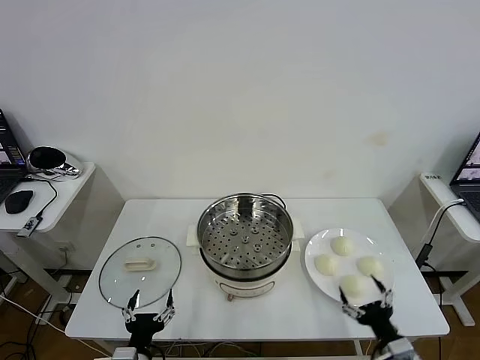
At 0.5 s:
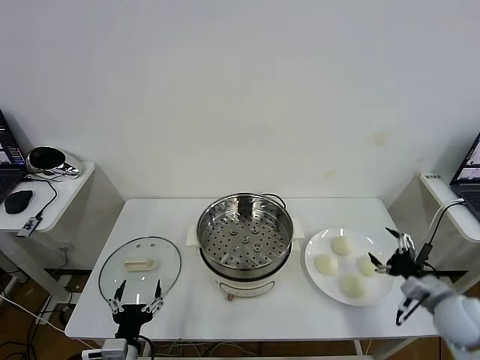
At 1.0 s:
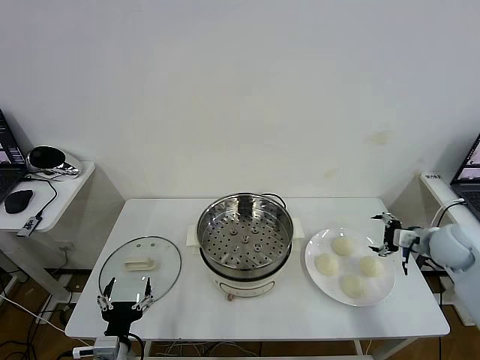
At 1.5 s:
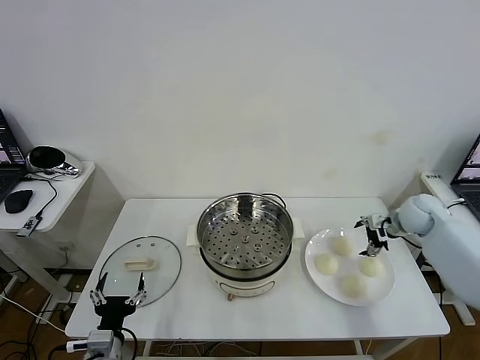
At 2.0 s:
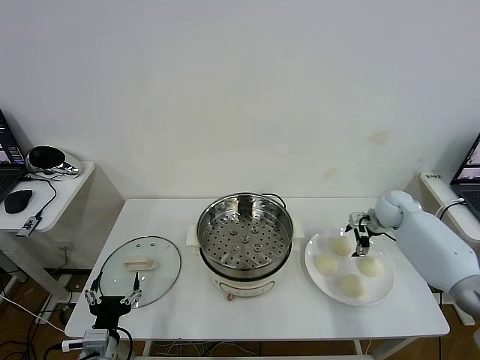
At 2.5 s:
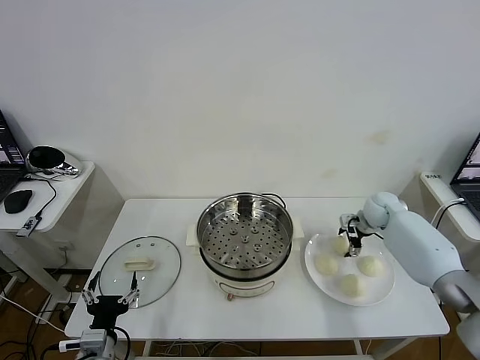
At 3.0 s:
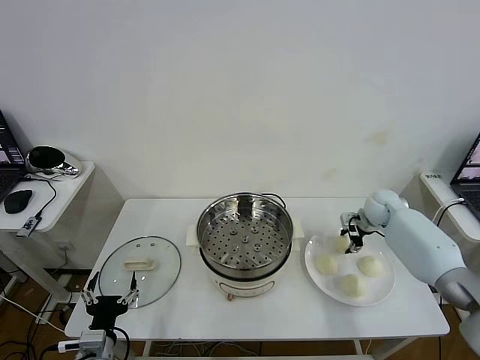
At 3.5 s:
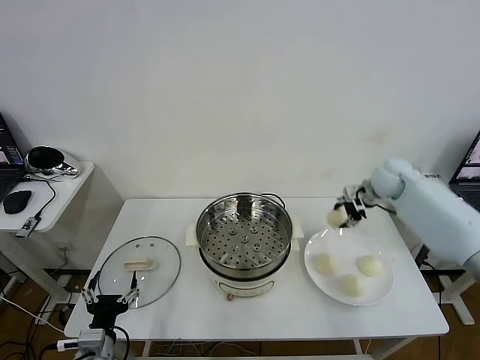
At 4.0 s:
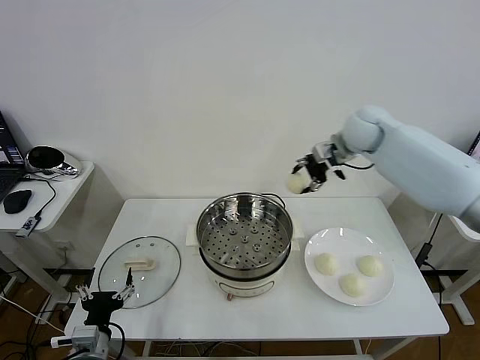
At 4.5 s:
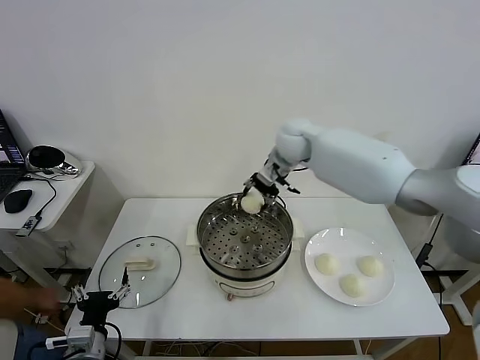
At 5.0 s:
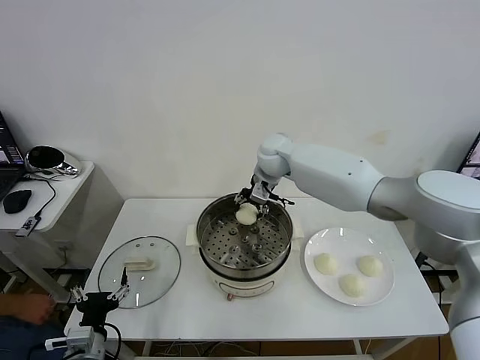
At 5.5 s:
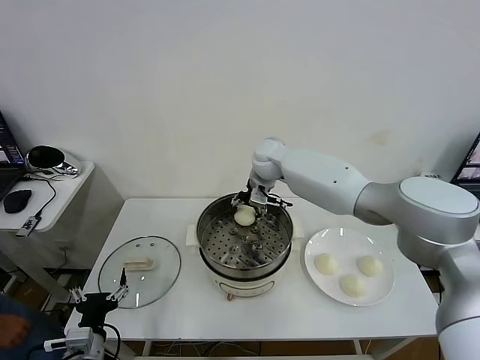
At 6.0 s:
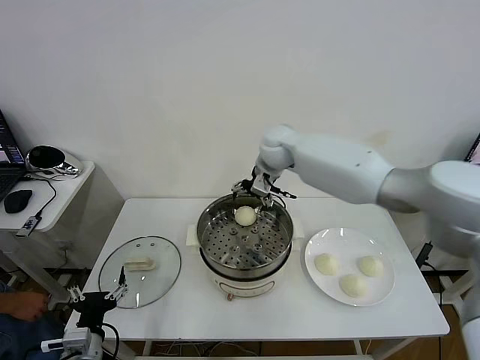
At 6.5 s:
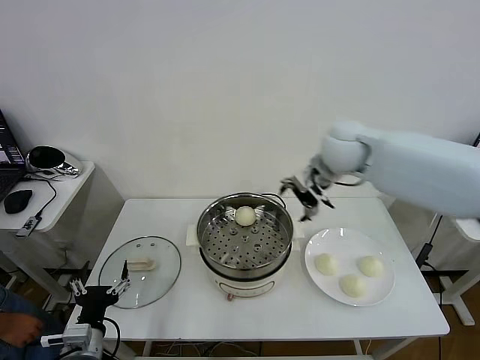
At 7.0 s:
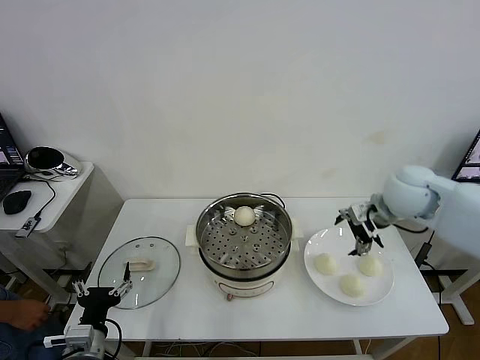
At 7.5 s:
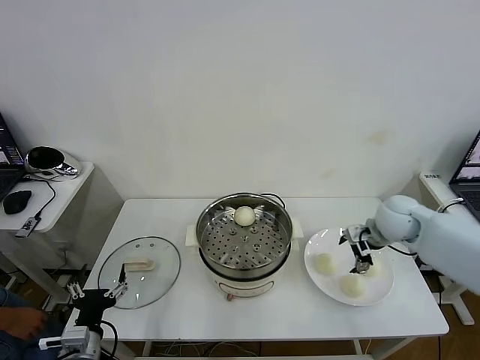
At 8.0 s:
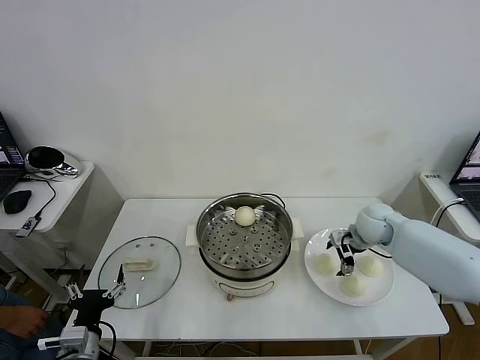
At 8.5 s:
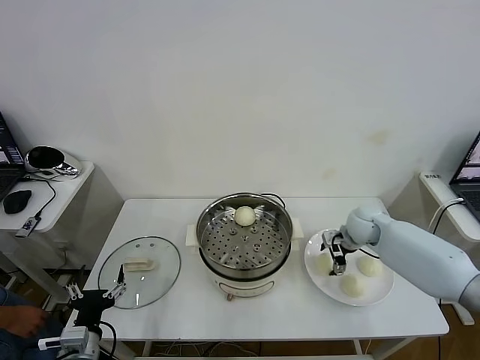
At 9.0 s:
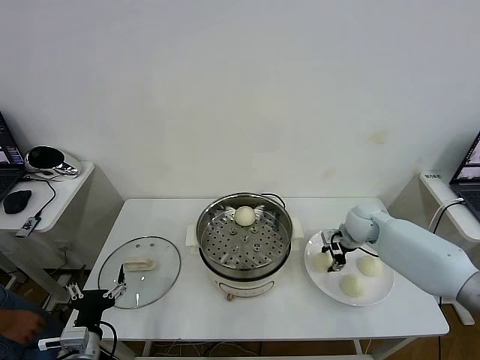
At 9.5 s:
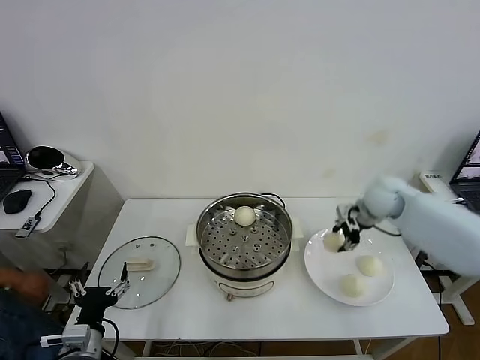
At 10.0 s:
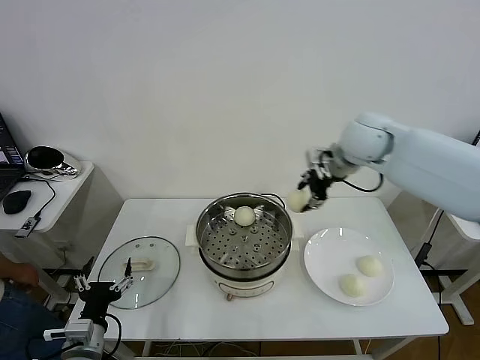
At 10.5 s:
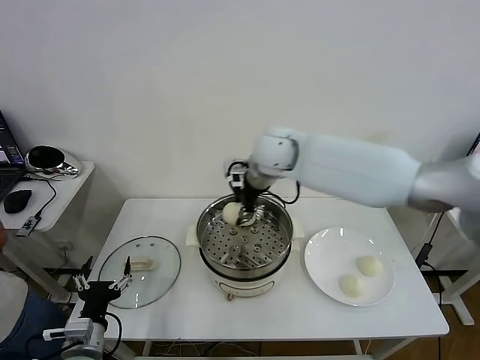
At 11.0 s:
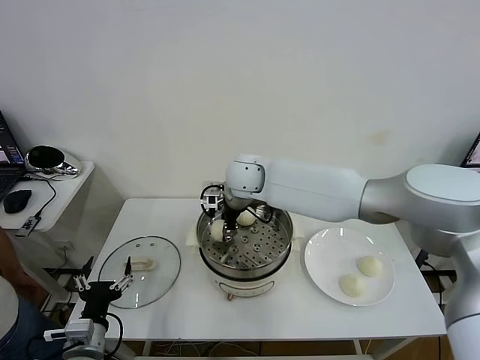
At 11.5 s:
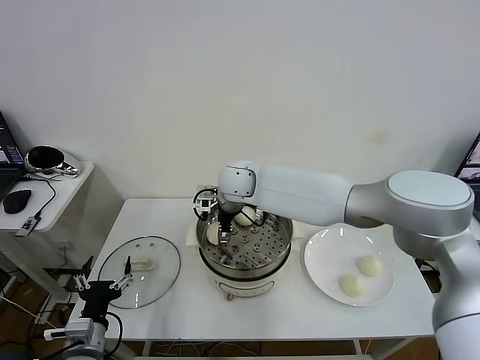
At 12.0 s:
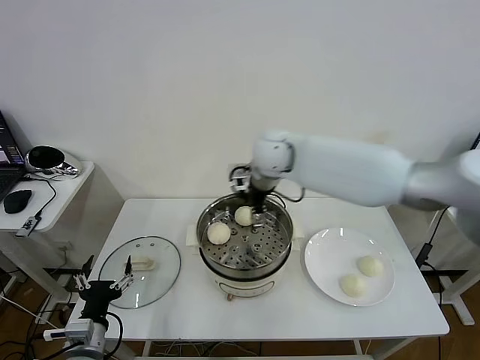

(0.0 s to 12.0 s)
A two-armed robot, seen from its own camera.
Task of the whole recording: take steamed baozi put them in steamer then cover it.
Step, 0.0 s - 2.5 s: Grasp the baozi in the plate with right gripper.
Step, 3.0 s - 5.5 s: Place the baozi on the steamer with right gripper.
Step, 6.0 s - 8.5 s: Grasp the baozi in the plate with right gripper.
Step, 9.0 s - 11.5 s: Place the baozi on the steamer with right gripper.
2.0 s - 4.0 s: The right gripper travels upward and to the left by approximately 30 cm, and closes up.
4.0 s - 6.0 s: The right gripper travels to the left by some 15 cm, and opens up.
6.0 s - 8.0 s: The right gripper travels to the right and downward by roughly 30 cm.
8.0 s - 10.0 s: The right gripper shifts approximately 25 cm upward and to the left, and closes.
10.0 s - 12.0 s: The right gripper is displaced to the left by some 15 cm, and opens.

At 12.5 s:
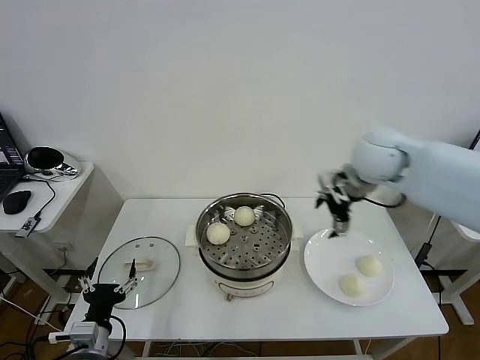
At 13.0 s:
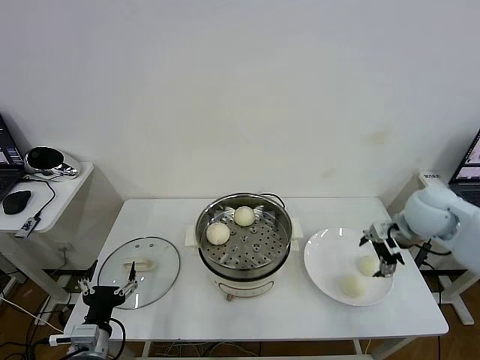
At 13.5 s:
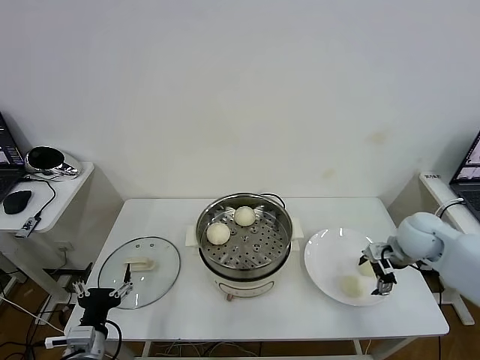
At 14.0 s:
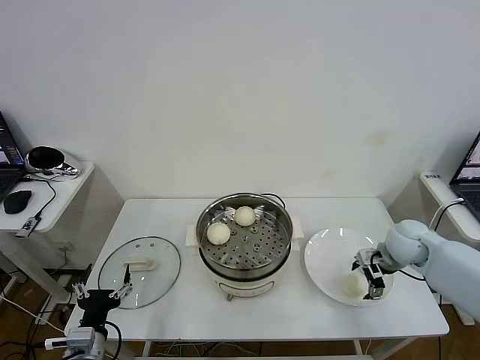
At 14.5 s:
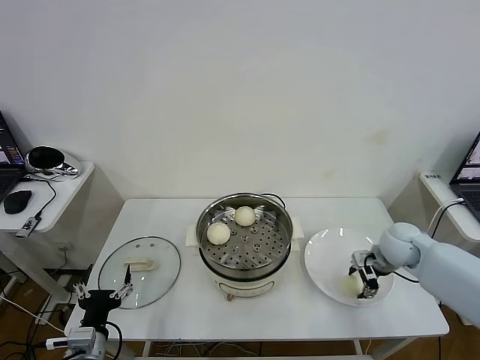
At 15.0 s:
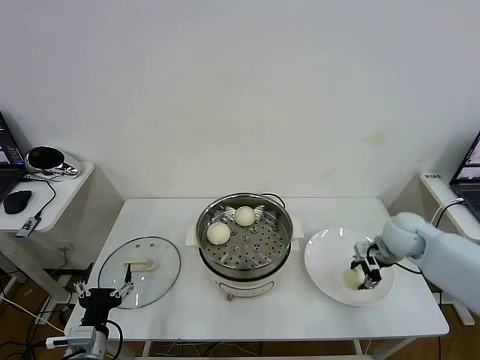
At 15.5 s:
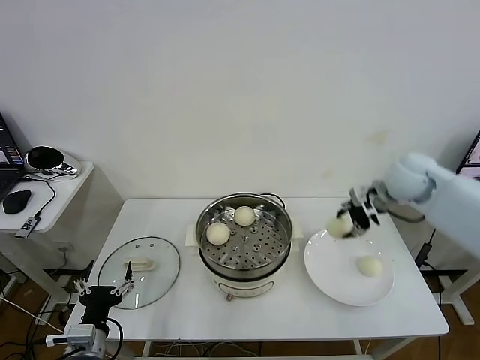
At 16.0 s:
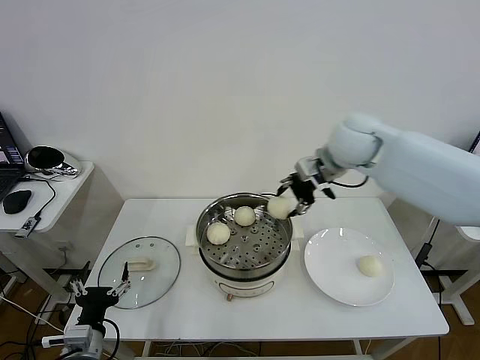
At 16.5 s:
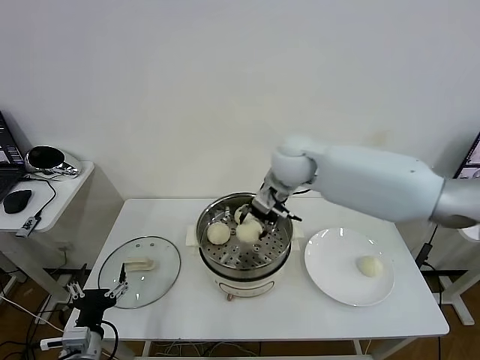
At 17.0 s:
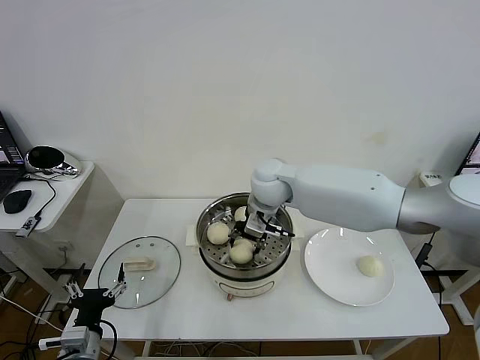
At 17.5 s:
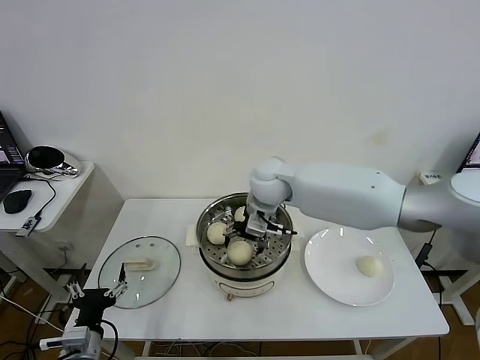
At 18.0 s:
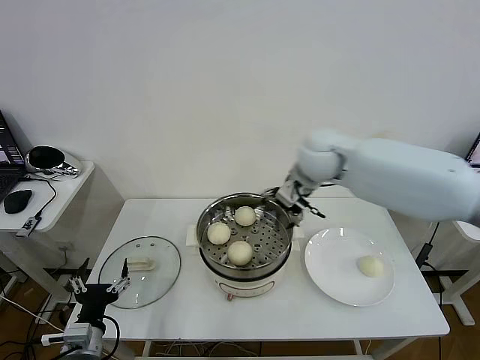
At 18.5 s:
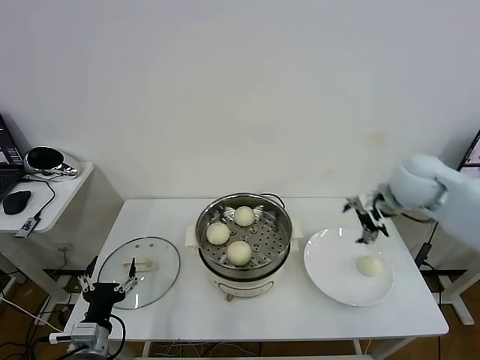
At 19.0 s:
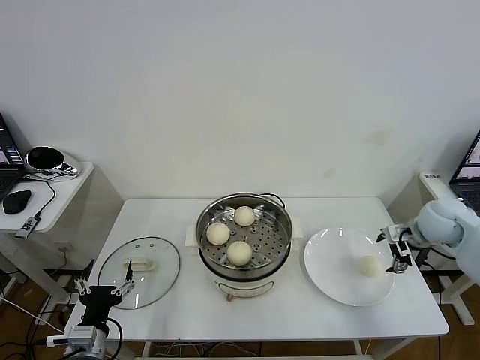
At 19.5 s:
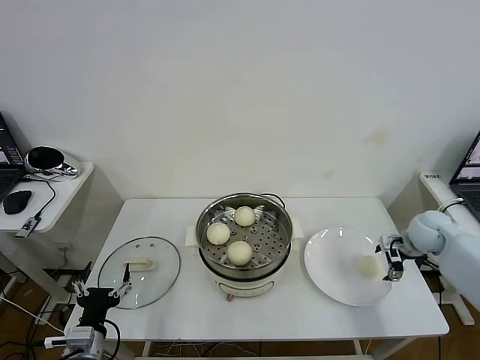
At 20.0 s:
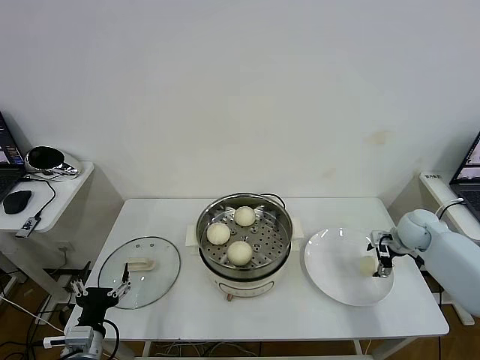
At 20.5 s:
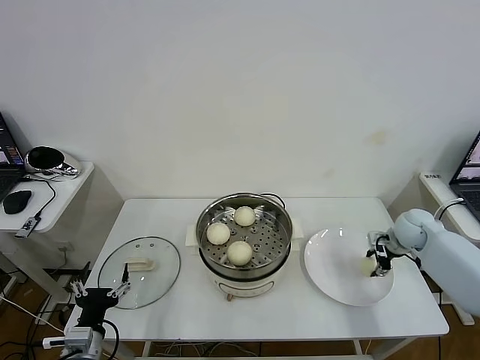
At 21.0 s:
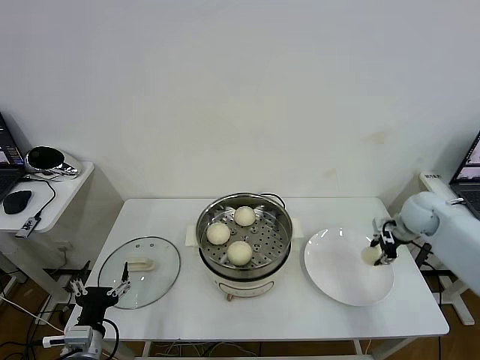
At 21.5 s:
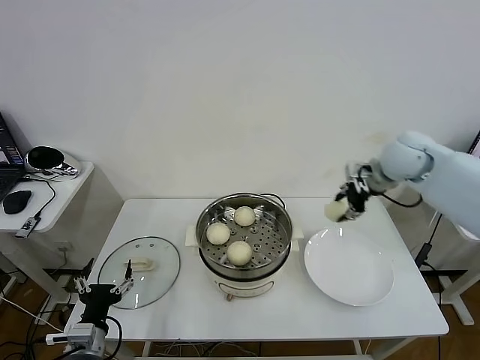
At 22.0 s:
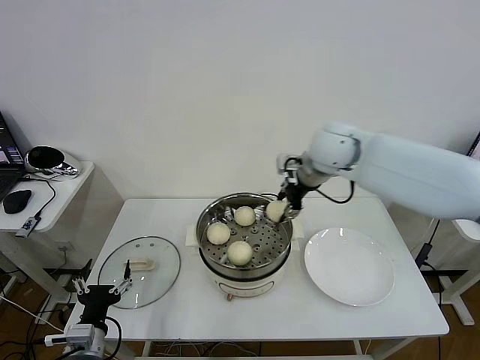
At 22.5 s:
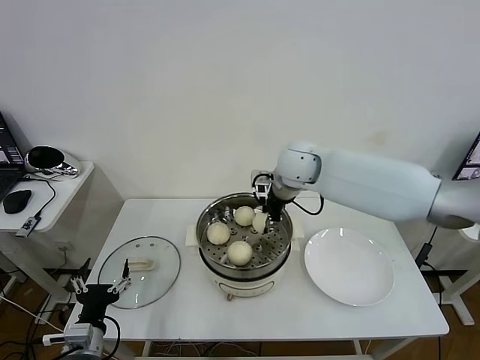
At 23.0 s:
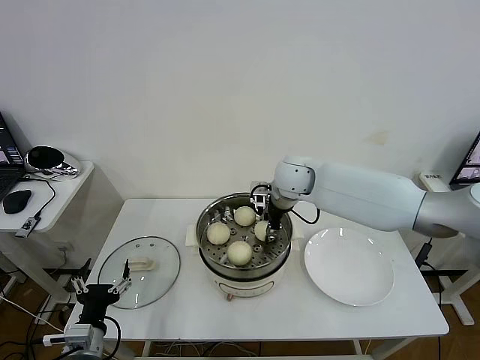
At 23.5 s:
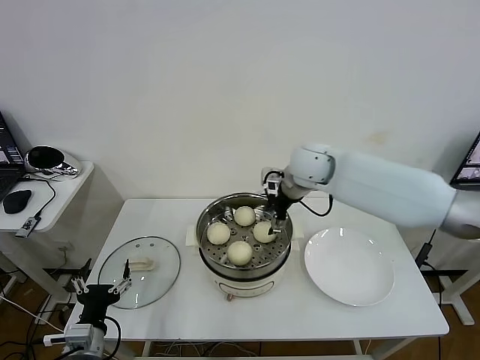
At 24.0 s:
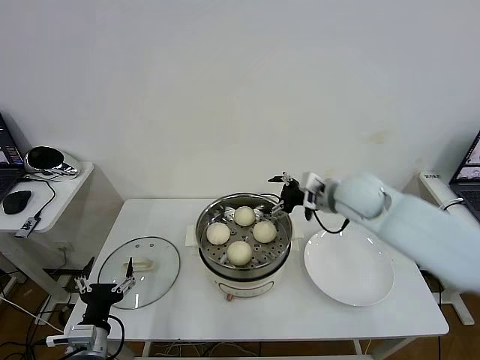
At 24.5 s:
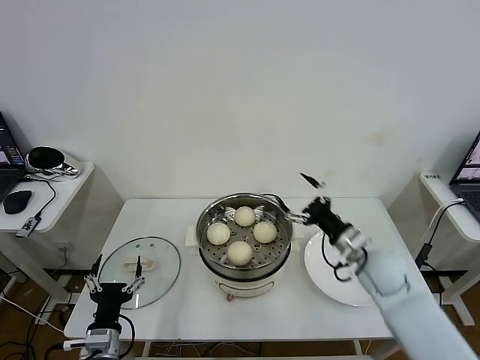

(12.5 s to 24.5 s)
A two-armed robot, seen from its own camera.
Task of the whole recording: take steamed baozi put them in steamer then cover it.
Step, 12.5 s - 14.5 s: Grasp the baozi in the plate with right gripper.
Step, 15.0 s - 17.5 s: Place the baozi on the steamer with right gripper.
Step, 18.0 s - 20.5 s: Grasp the baozi in the plate with right gripper.
Step, 21.0 s - 23.5 s: Place the baozi on the steamer with right gripper.
12.5 s - 14.5 s: The right gripper travels downward and to the right by some 25 cm, and closes up.
14.5 s - 16.5 s: The right gripper travels to the left and upward by about 35 cm.
16.5 s - 18.5 s: The right gripper travels to the right by some 25 cm, and opens its fingers.
18.5 s - 20.5 s: The right gripper shifts some 20 cm downward and to the right, and closes its fingers.
20.5 s - 22.5 s: The right gripper is displaced to the left and upward by roughly 35 cm.
22.5 s - 24.5 s: The right gripper heads to the right, backward and downward, covering roughly 30 cm, and opens.

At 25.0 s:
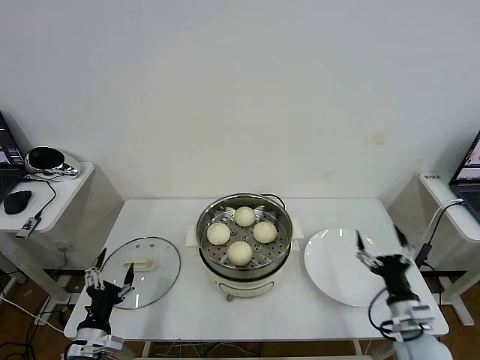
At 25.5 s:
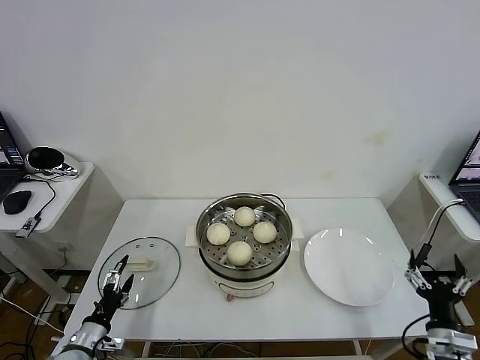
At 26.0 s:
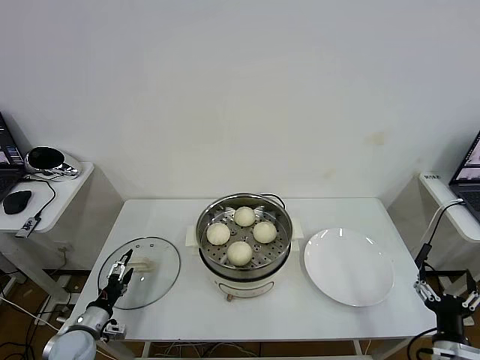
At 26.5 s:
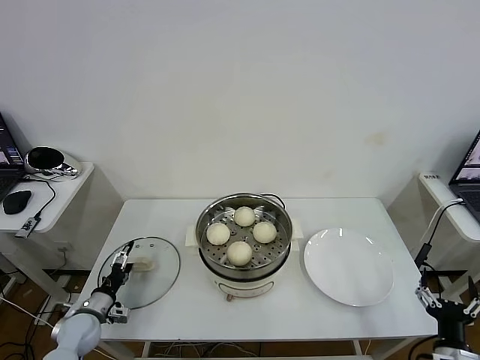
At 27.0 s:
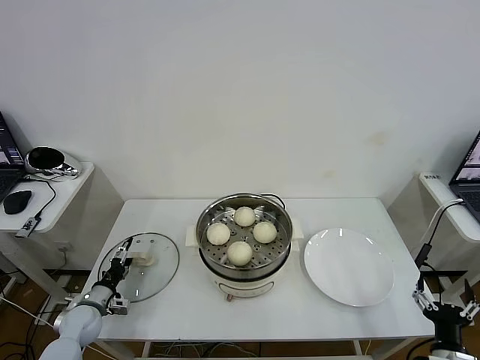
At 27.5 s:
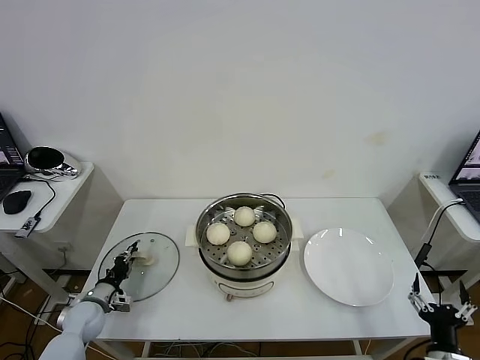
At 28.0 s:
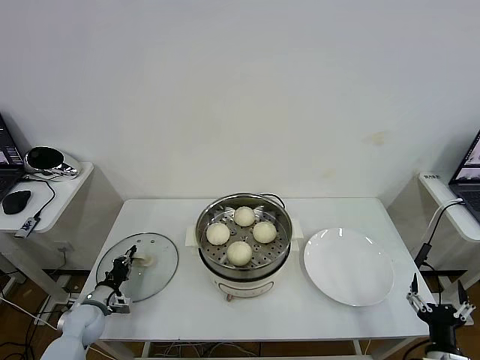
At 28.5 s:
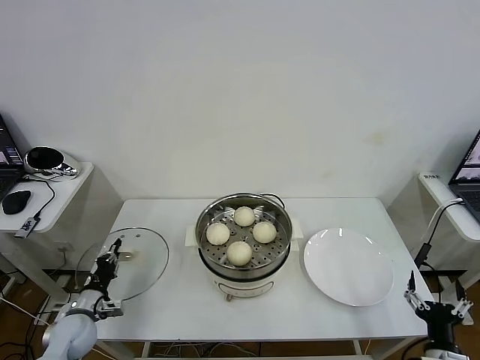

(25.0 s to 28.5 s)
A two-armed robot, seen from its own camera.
Task of the whole recording: take steamed baozi put them in steamer then cover it.
Step, 25.0 s - 27.5 s: Grasp the pot lid with left gripper.
25.0 s - 27.0 s: The right gripper goes roughly 10 cm backward; the left gripper heads forward, to the left and downward, covering about 20 cm.
27.0 s - 28.5 s: The left gripper closes its fingers.
